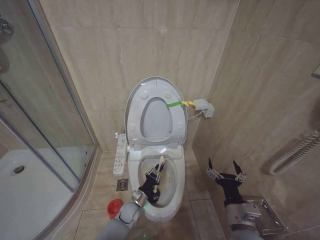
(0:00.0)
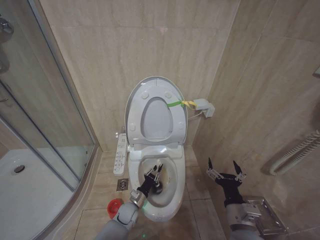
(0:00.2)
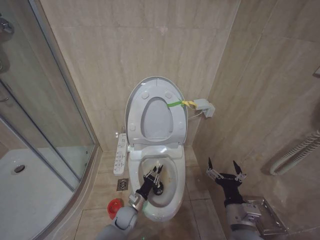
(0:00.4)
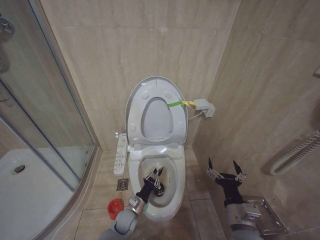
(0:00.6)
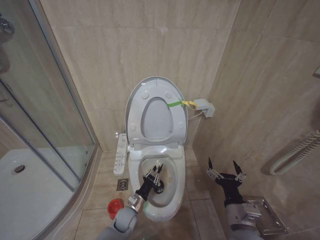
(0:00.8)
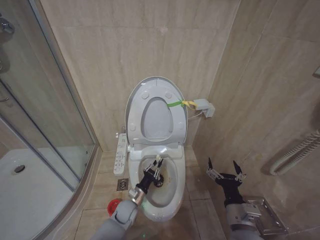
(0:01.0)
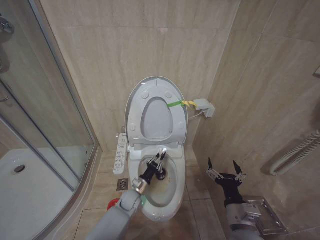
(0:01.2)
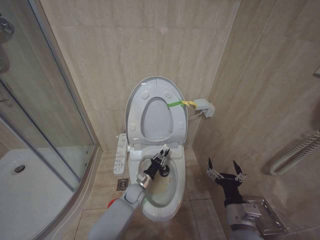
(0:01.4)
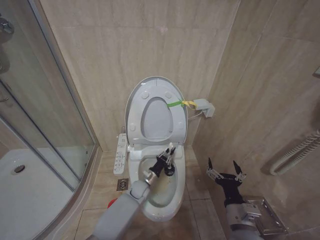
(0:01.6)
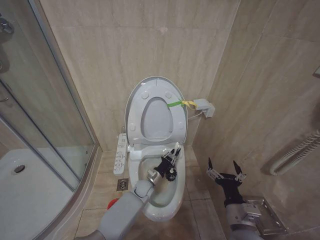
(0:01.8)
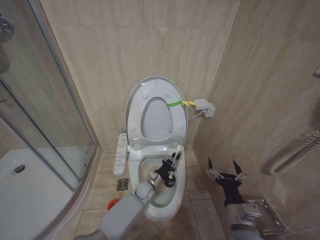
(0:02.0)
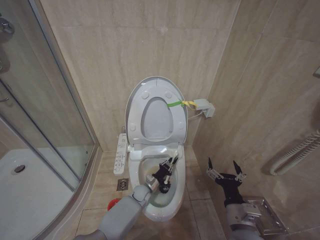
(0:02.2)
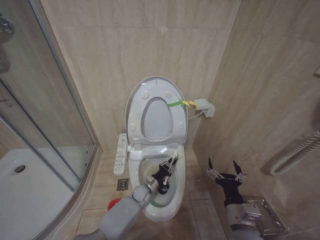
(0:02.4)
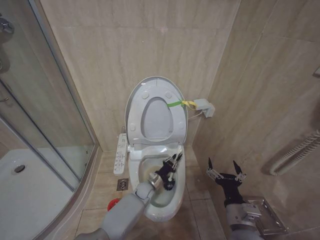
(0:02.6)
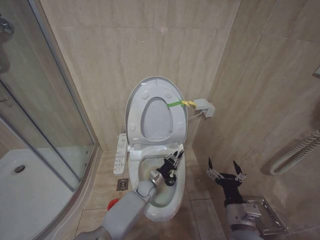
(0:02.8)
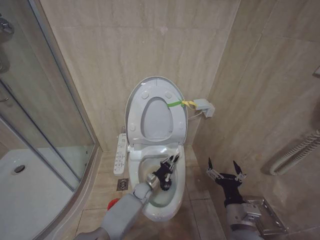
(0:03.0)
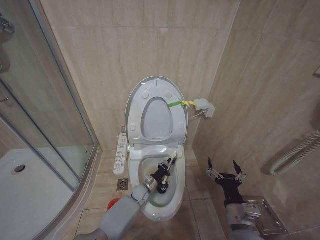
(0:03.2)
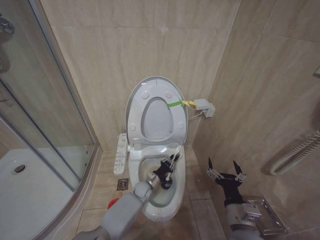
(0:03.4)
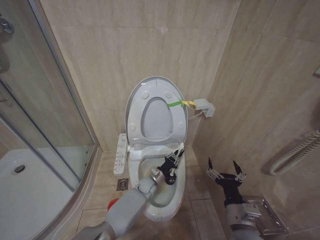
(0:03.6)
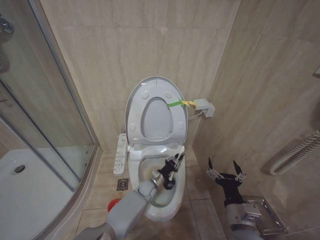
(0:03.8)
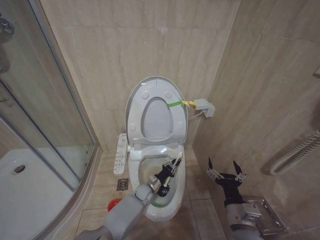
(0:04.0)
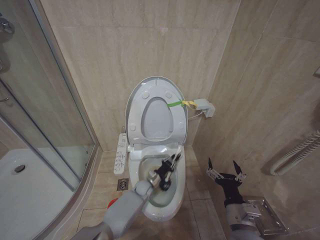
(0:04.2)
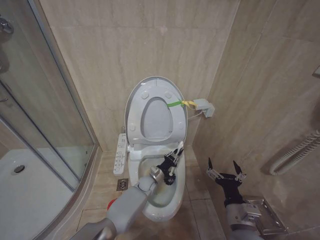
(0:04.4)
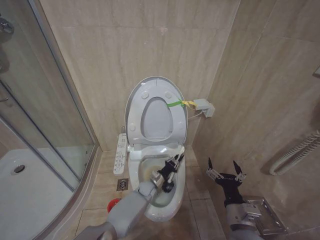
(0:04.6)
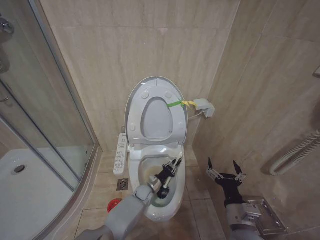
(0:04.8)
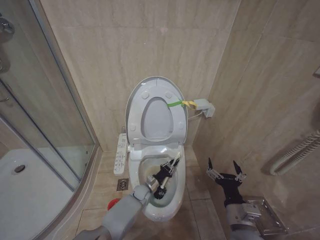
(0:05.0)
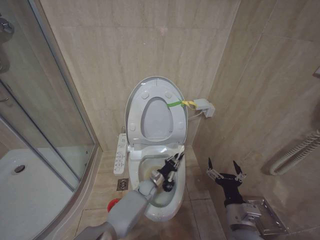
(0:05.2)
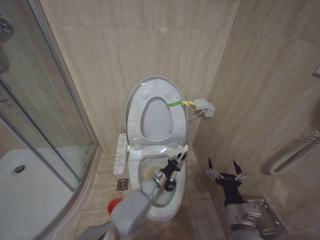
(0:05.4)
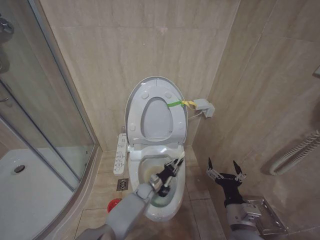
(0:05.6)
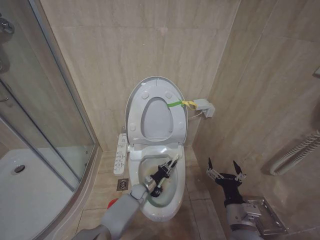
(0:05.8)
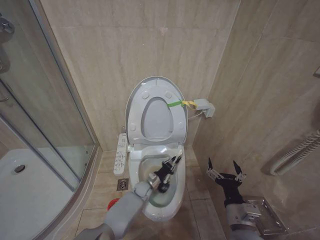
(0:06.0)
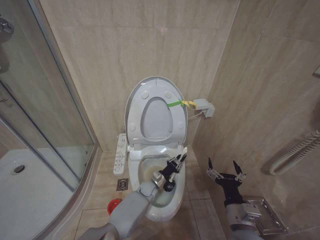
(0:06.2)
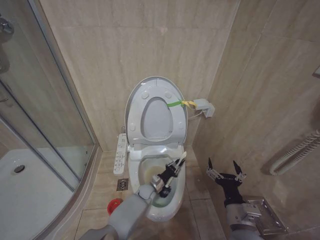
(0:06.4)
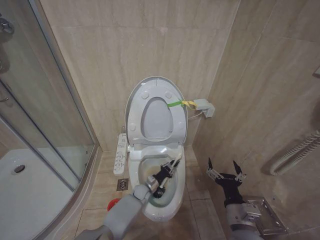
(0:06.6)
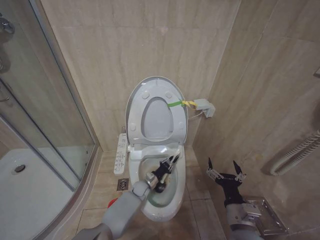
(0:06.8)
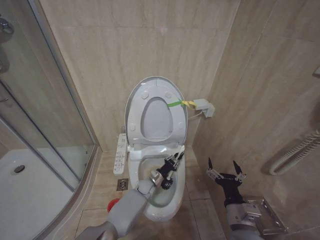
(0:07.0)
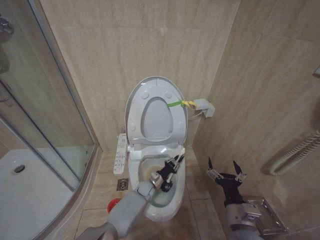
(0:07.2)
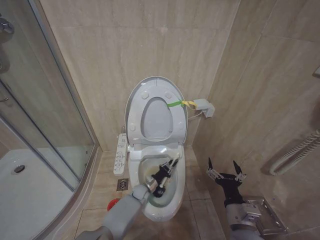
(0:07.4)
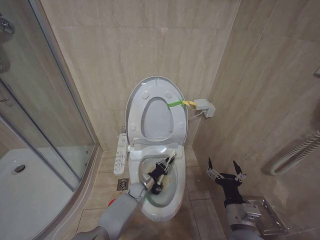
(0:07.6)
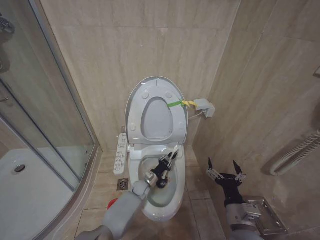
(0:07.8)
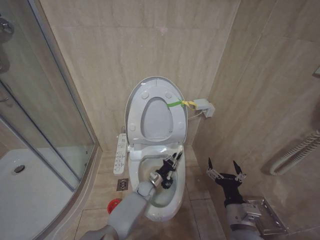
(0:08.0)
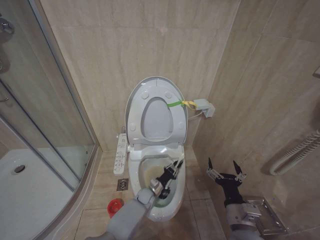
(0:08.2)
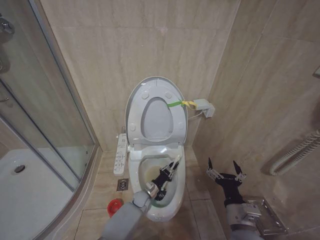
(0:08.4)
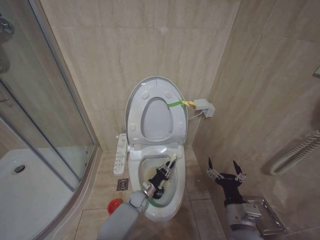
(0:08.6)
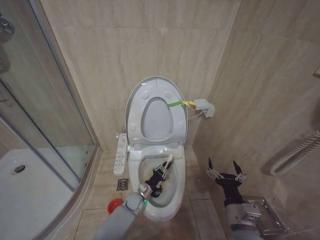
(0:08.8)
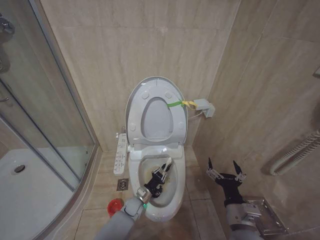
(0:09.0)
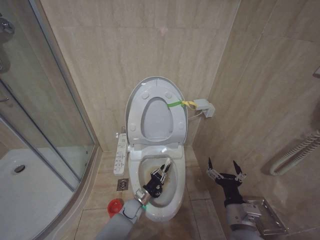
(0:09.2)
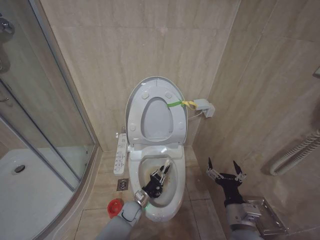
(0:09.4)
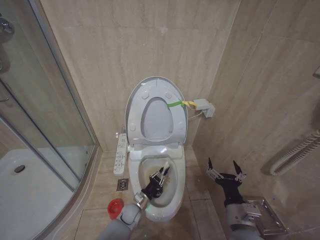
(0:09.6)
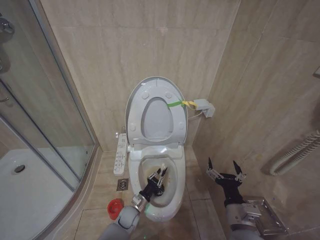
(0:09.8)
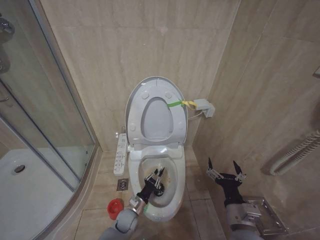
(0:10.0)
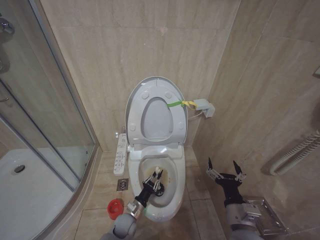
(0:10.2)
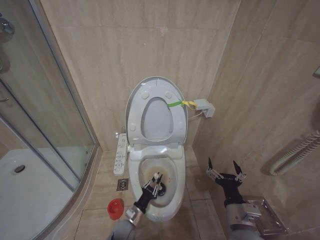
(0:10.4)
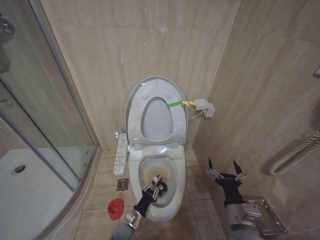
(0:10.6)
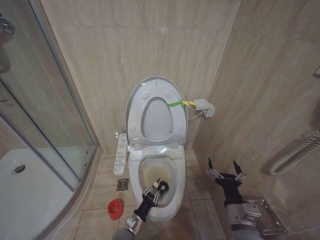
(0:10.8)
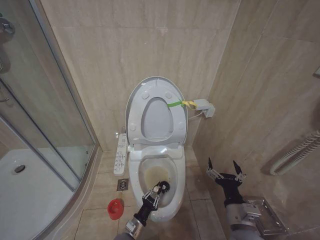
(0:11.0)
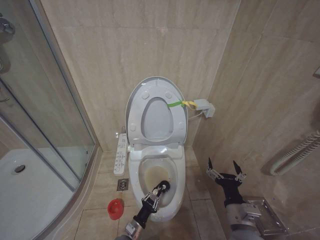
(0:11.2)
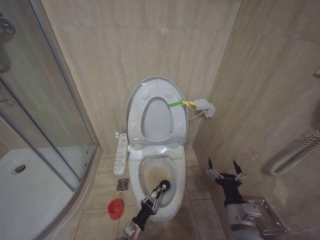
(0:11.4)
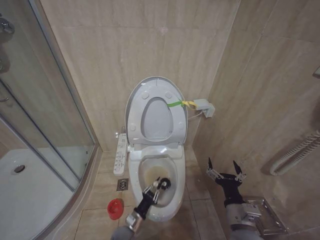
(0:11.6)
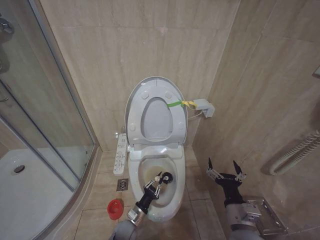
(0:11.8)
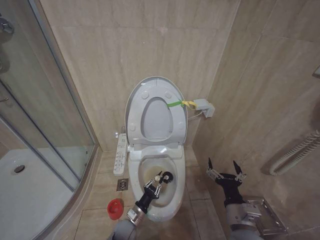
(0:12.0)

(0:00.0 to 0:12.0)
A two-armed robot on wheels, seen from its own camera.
Task of the whole recording: Open the toilet lid, clean the toilet bowl with a toilet brush, close the toilet lid, and flush.
0:00.0 - 0:01.6: The left gripper heads forward and upward, covering about 10 cm.
0:01.6 - 0:04.4: The grippers make only small movements.
0:04.4 - 0:06.0: The grippers make only small movements.
0:06.0 - 0:07.6: The left gripper swings left and right, roughly 5 cm each way, with 3 reversals.
0:07.6 - 0:09.0: The left gripper travels backward by roughly 5 cm.
0:09.0 - 0:10.4: The left gripper goes about 10 cm backward.

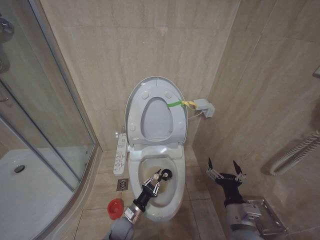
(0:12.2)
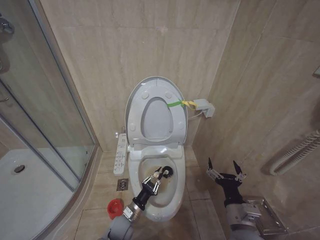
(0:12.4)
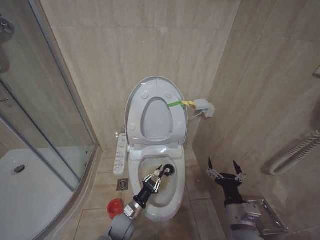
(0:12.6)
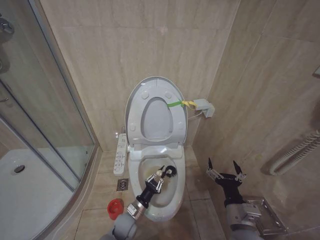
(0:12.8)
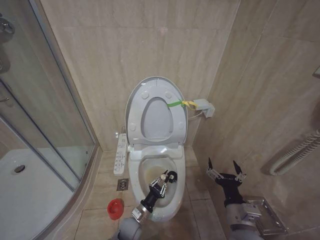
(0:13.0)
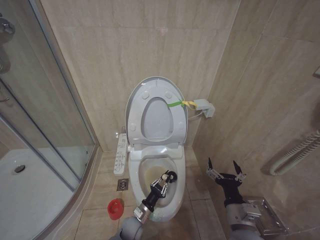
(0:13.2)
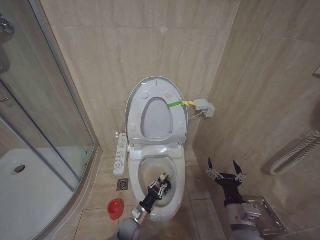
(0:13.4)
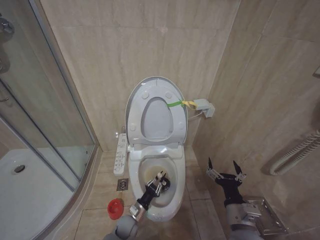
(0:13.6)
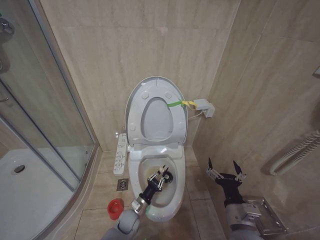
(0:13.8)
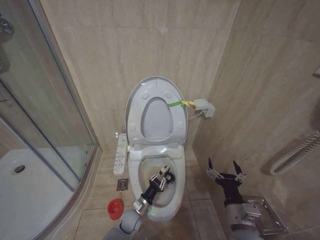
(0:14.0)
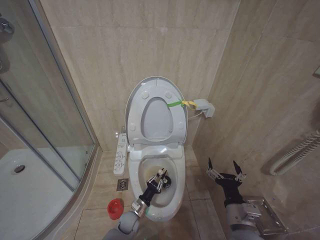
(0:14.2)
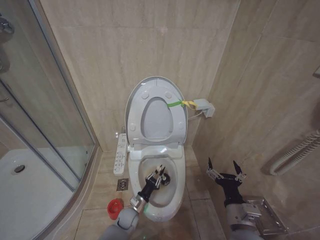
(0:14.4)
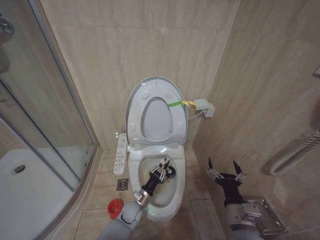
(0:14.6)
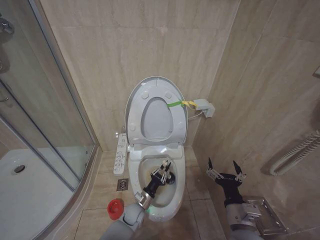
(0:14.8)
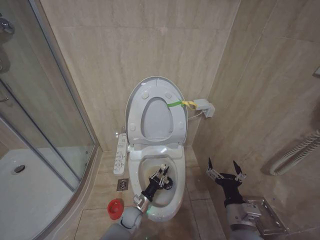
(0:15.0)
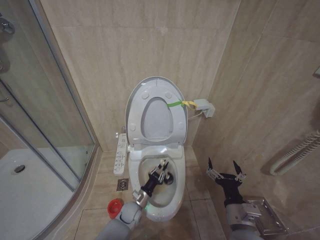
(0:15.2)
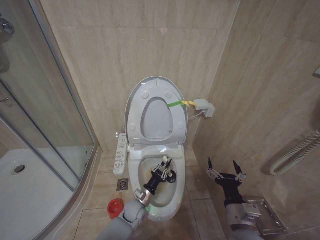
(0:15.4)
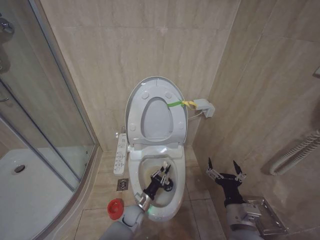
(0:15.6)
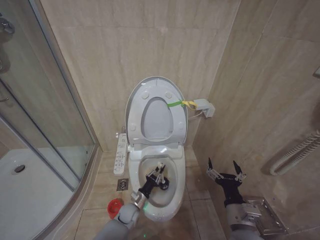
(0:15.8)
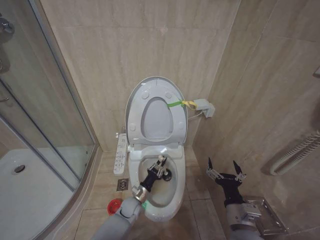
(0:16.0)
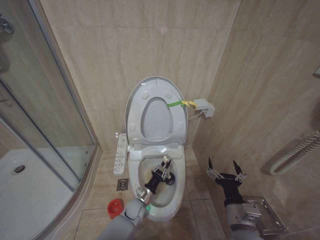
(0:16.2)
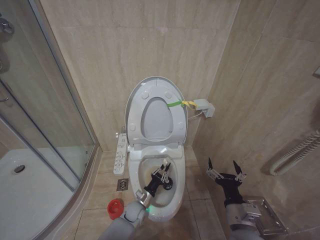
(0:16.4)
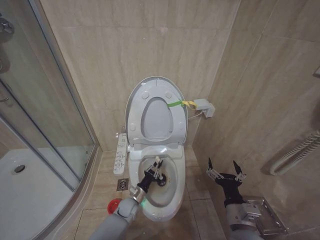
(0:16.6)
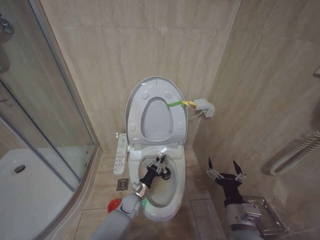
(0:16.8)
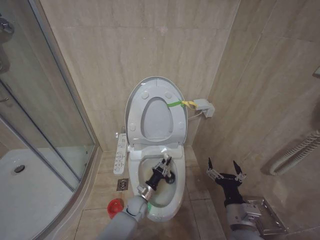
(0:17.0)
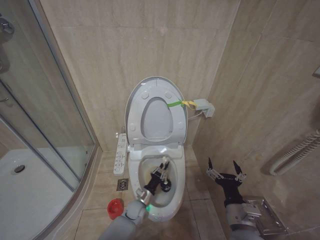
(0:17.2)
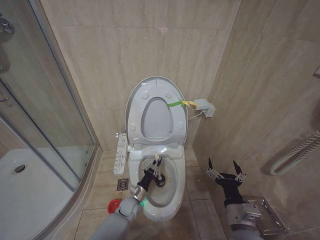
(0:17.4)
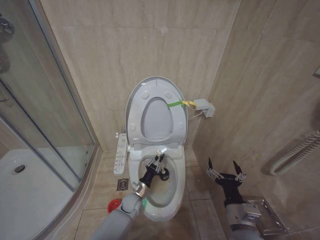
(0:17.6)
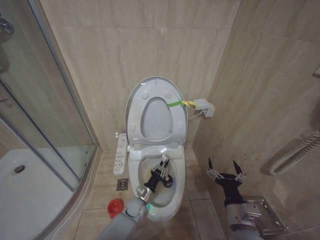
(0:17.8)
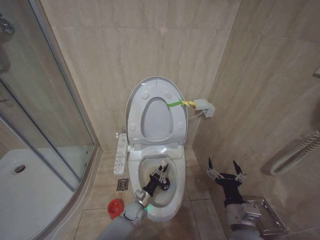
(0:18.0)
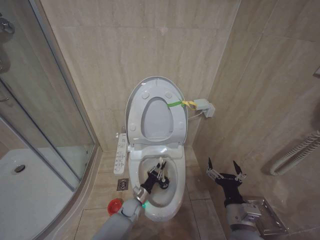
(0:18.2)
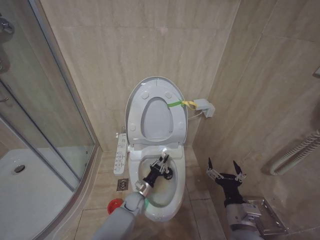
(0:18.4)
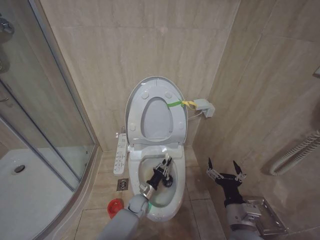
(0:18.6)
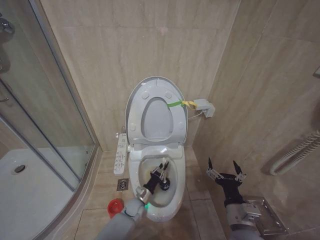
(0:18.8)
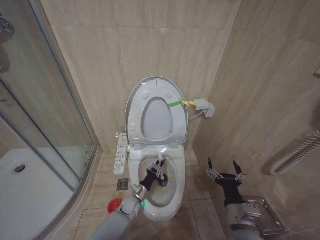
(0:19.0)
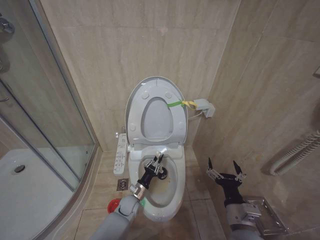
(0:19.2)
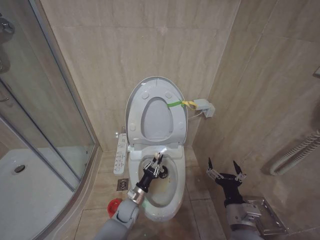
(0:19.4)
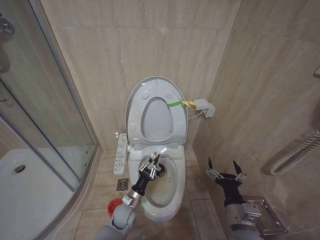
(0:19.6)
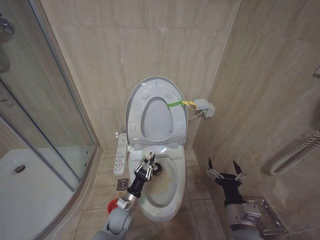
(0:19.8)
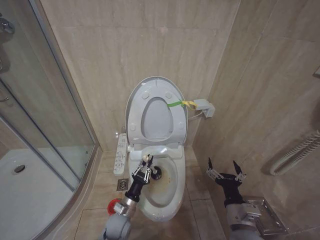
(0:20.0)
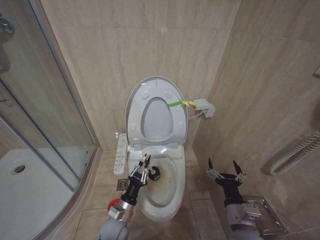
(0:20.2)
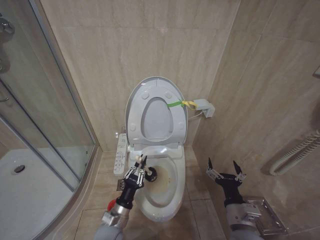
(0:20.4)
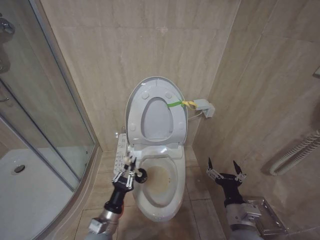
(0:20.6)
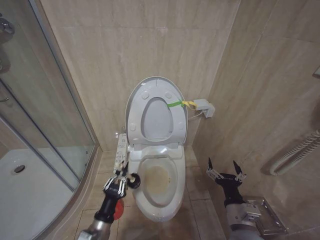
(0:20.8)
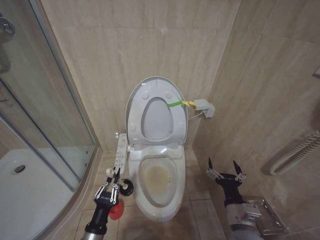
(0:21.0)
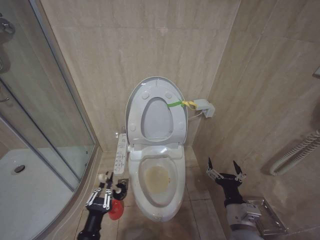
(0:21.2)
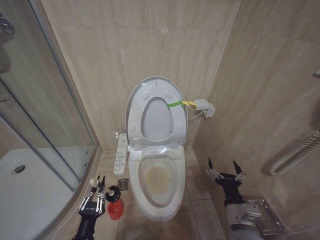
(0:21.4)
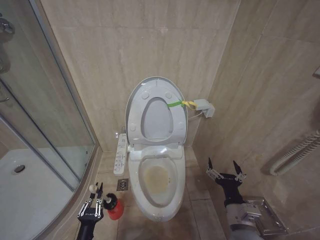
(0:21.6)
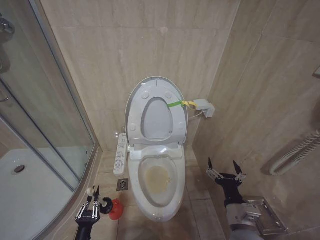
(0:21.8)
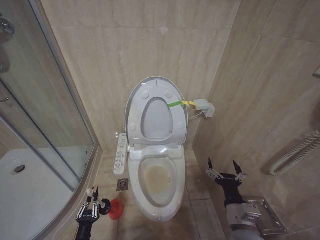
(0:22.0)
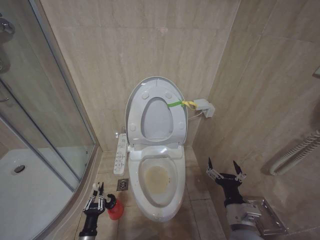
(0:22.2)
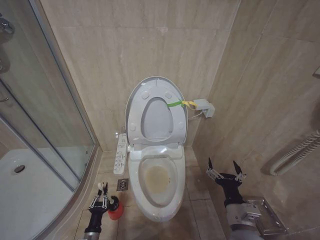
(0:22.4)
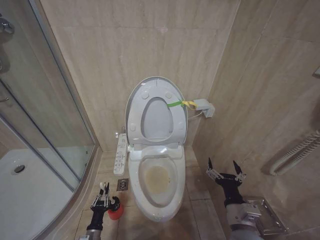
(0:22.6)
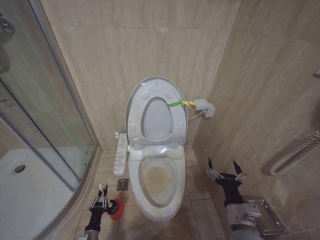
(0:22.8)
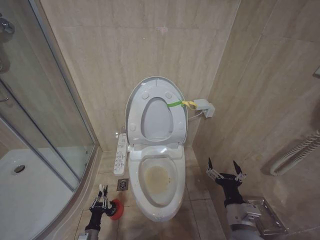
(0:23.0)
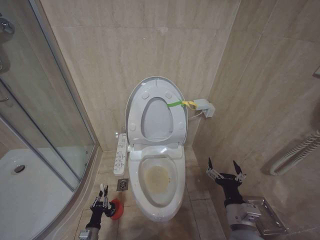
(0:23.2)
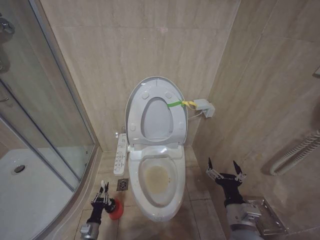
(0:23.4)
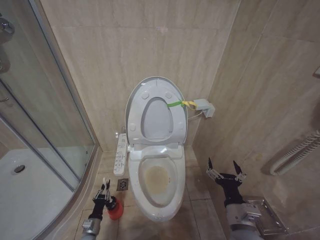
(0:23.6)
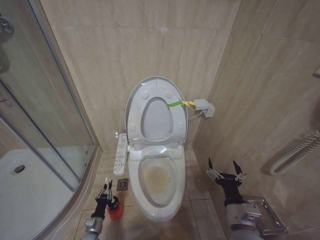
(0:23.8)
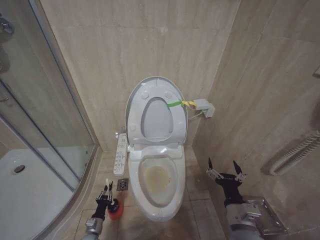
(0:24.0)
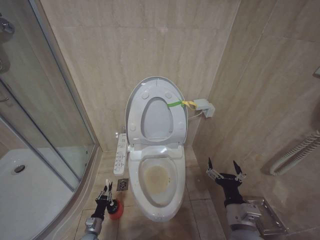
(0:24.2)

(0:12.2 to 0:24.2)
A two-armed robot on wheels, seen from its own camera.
Task of the whole recording: Open the toilet lid, clean the toilet bowl with a toilet brush, close the toilet lid, and flush.
0:12.2 - 0:13.8: The grippers stay close to where they were, moving slightly.
0:13.8 - 0:15.2: The grippers move only a little.
0:15.2 - 0:18.2: The grippers stay close to where they were, moving slightly.
0:18.2 - 0:19.8: The left gripper goes about 10 cm upward.
0:19.8 - 0:21.2: The left gripper moves backward, to the left and upward, approximately 20 cm.
0:21.2 - 0:22.6: The left gripper is displaced downward by approximately 20 cm.
0:22.6 - 0:24.2: The left gripper heads forward and downward, covering approximately 10 cm.
